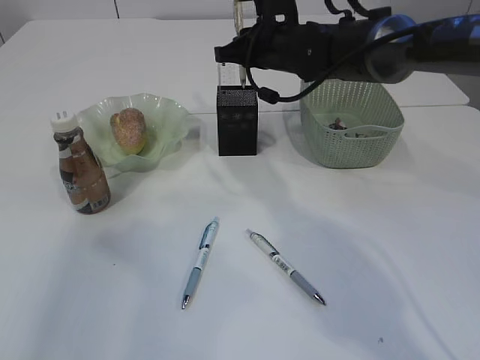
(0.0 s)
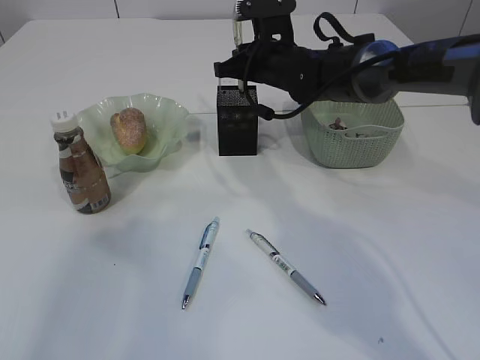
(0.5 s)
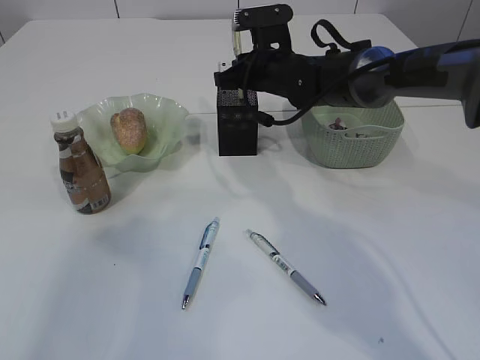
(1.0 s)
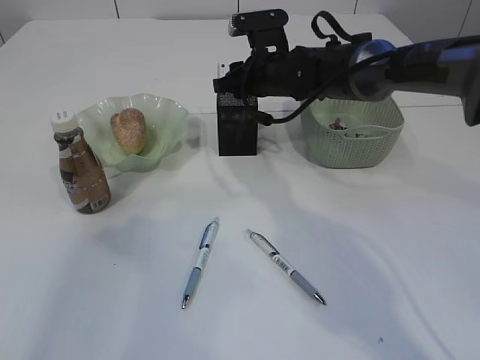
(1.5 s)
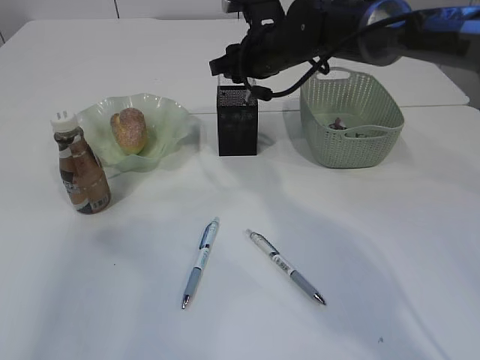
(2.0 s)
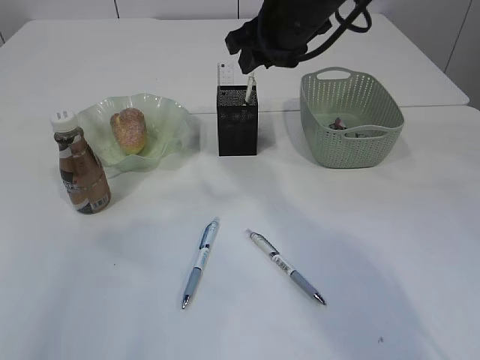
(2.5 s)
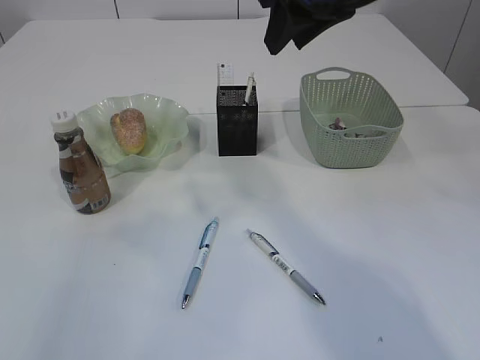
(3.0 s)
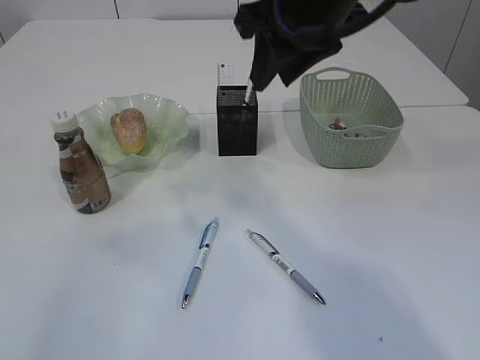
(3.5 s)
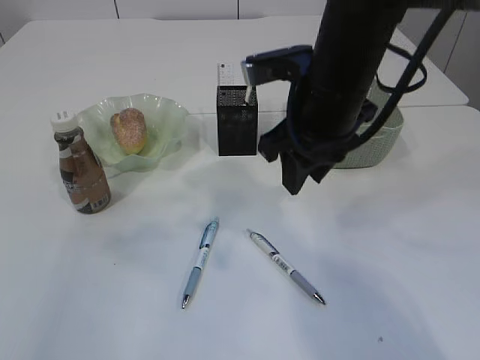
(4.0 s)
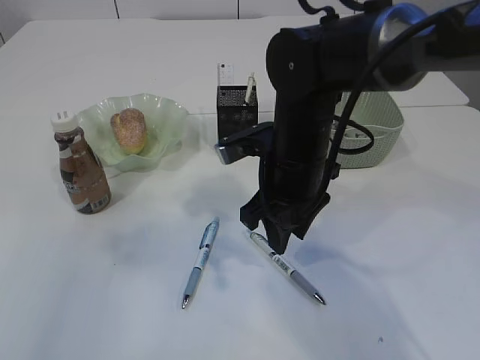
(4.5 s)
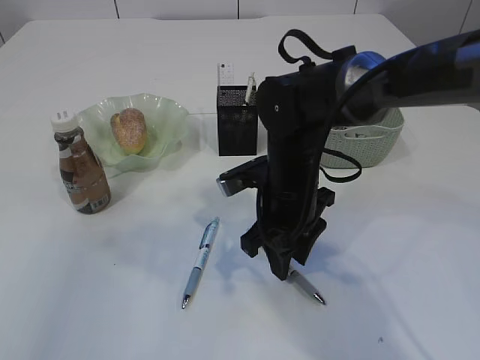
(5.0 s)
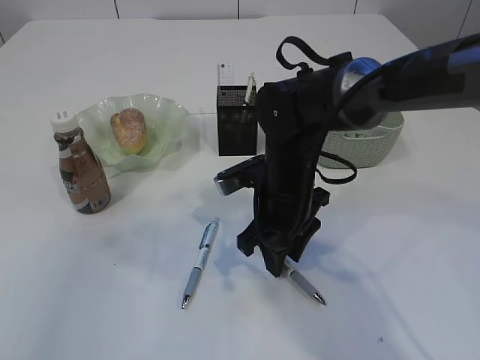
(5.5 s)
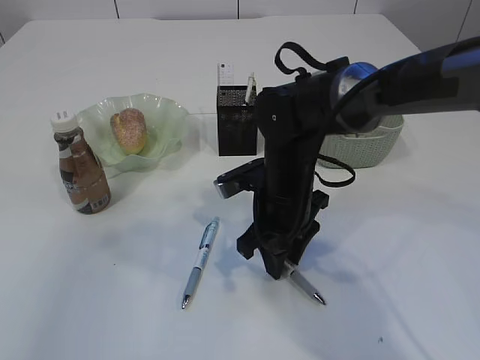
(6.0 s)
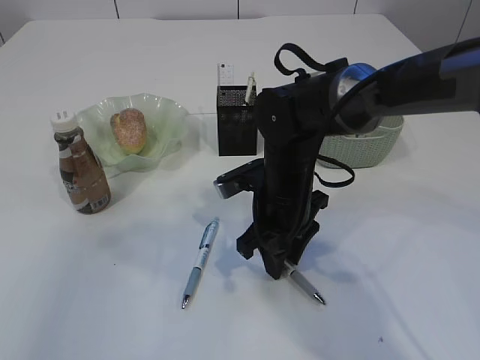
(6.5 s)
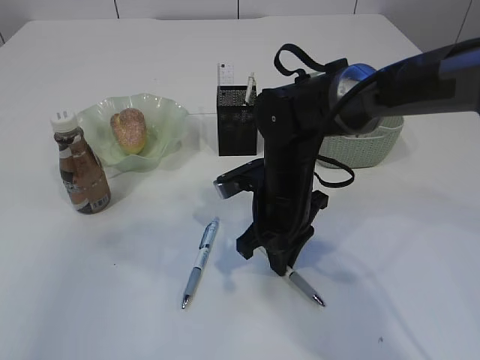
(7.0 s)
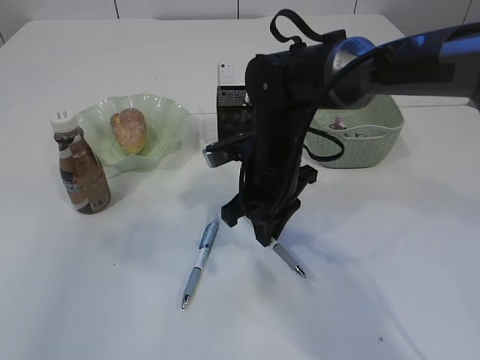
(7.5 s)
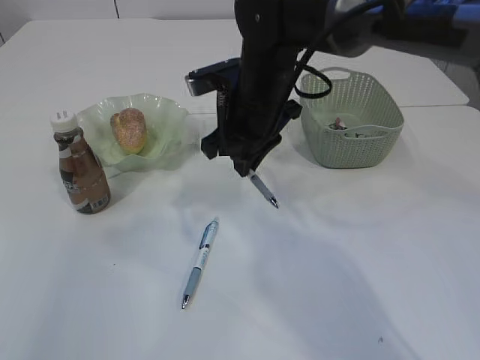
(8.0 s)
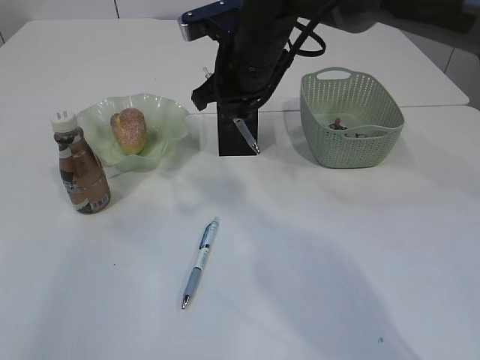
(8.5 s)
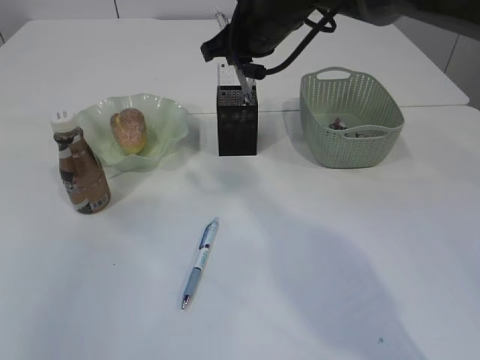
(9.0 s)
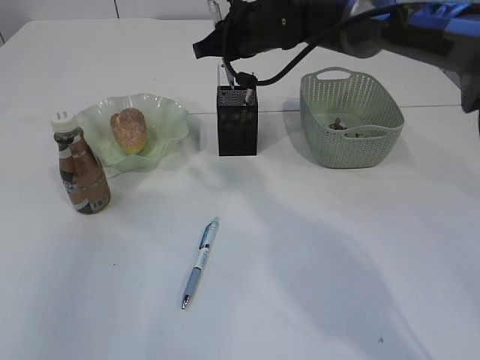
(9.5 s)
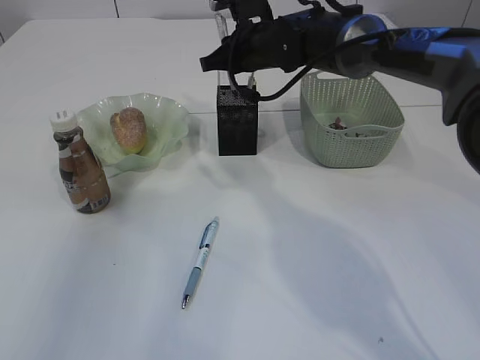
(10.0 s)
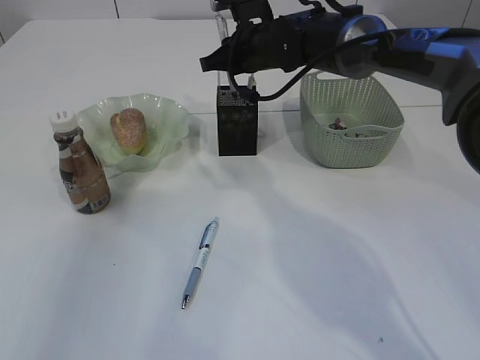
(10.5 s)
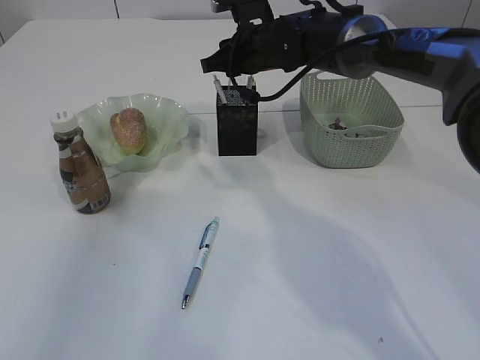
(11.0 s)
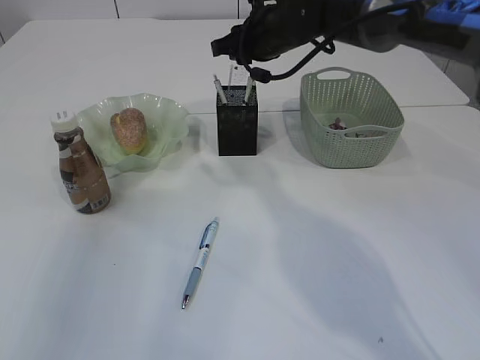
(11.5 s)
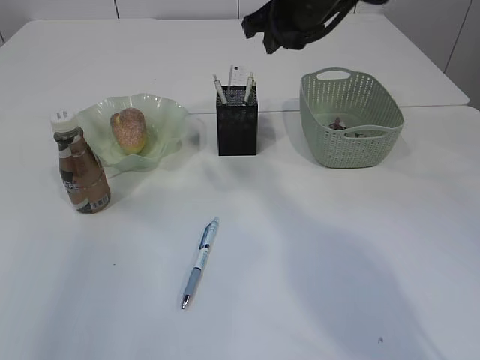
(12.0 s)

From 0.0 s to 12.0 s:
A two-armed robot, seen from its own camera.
Step, from 0.0 s to 2.5 s: Place the pen into the pen holder.
Step, from 3.0 s to 7.5 s: Pick up the pen with right arm.
Step, from 8.0 s to 11.5 s: Place the pen into the pen holder.
From 0.0 s to 2.0 s: The right gripper opens up.
From 2.0 s to 4.0 s: The right gripper shifts some 15 cm backward.
From 4.0 s to 6.0 s: The right gripper shifts some 15 cm downward.
From 6.0 s to 8.0 s: The right gripper goes about 10 cm upward and forward, and closes its fingers.
From 8.0 s to 10.0 s: The right gripper goes approximately 10 cm forward.
From 10.0 s to 12.0 s: The right gripper is displaced upward and backward by roughly 10 cm.

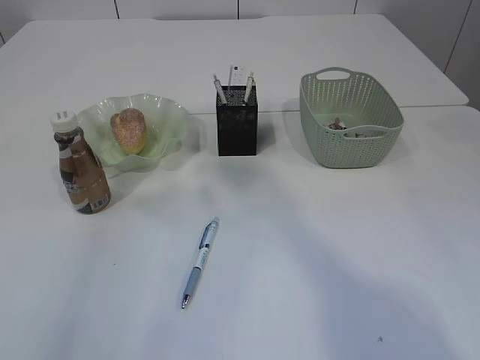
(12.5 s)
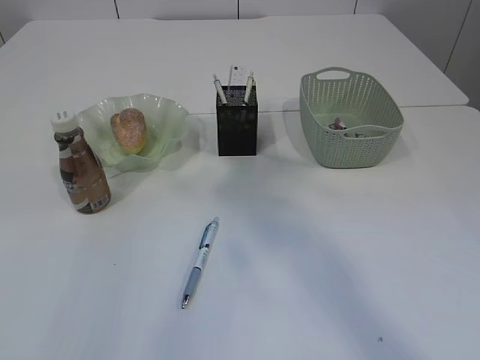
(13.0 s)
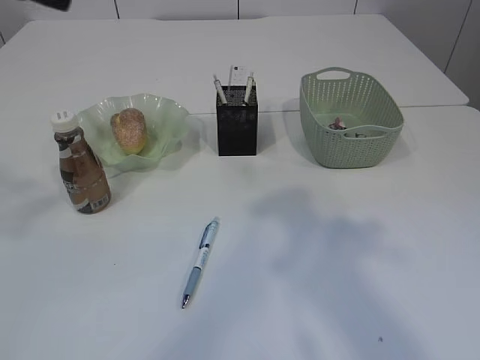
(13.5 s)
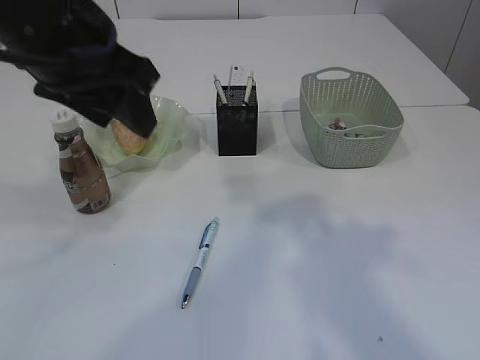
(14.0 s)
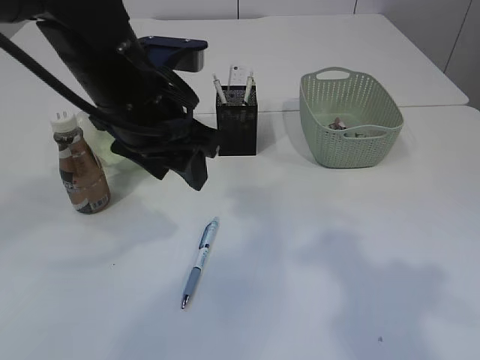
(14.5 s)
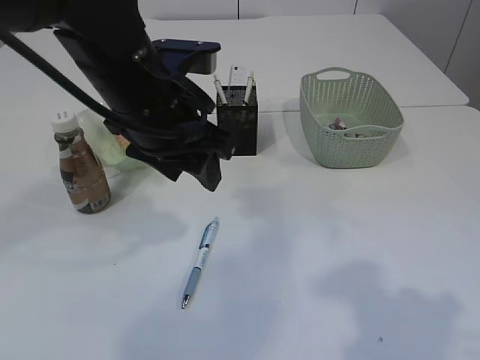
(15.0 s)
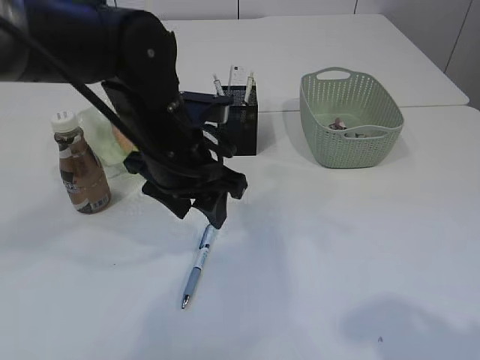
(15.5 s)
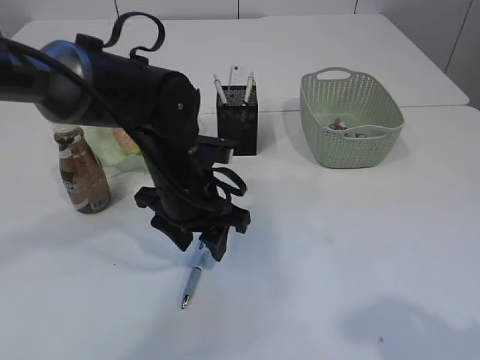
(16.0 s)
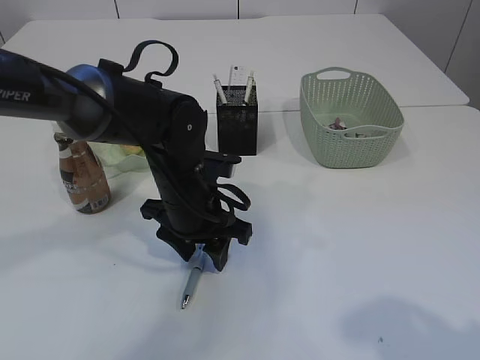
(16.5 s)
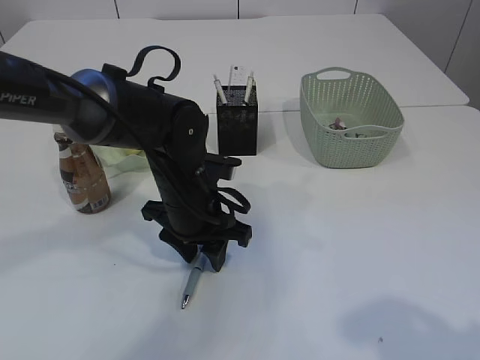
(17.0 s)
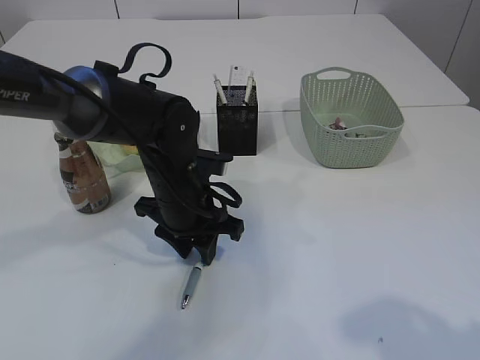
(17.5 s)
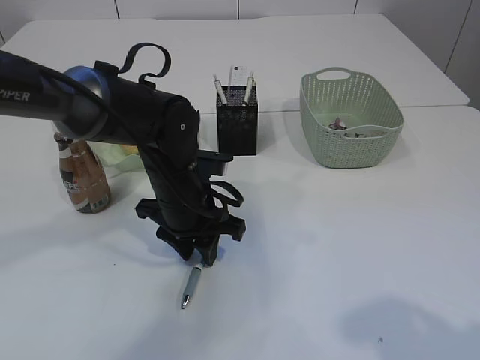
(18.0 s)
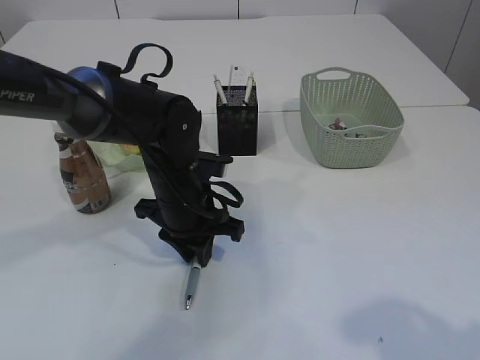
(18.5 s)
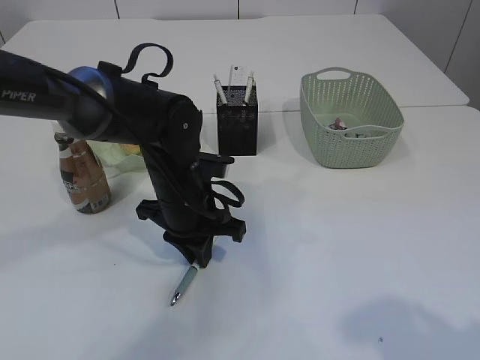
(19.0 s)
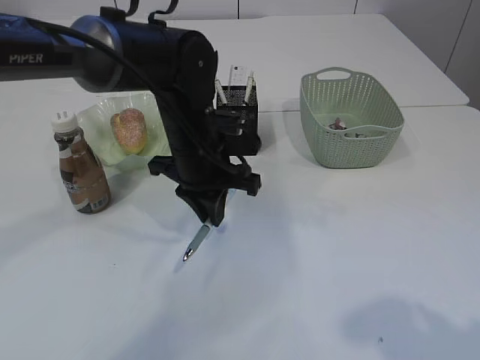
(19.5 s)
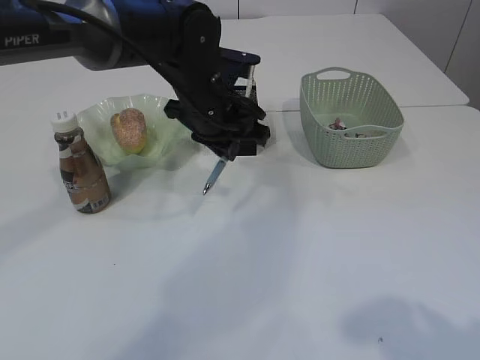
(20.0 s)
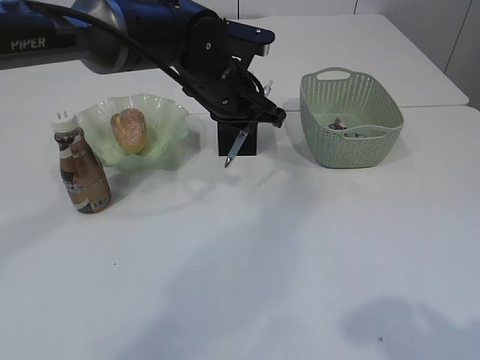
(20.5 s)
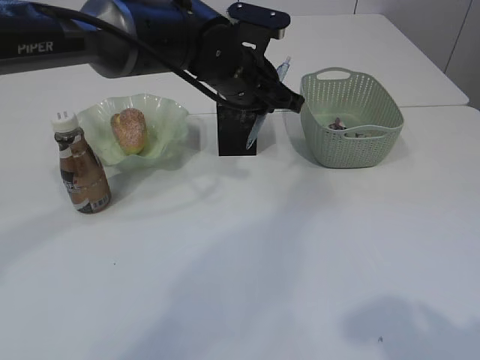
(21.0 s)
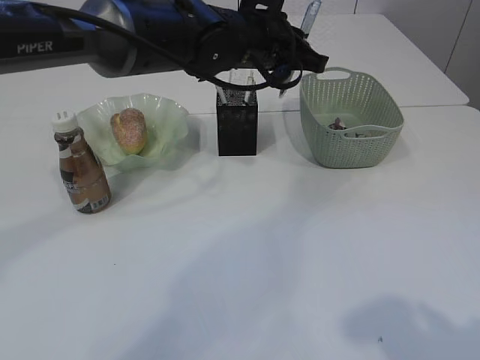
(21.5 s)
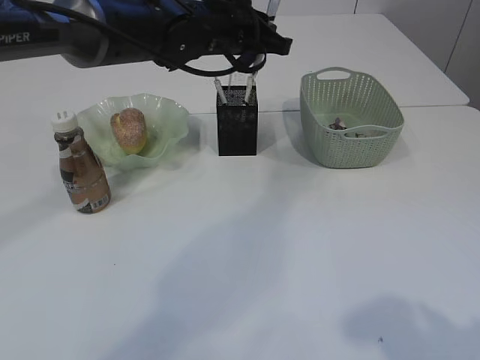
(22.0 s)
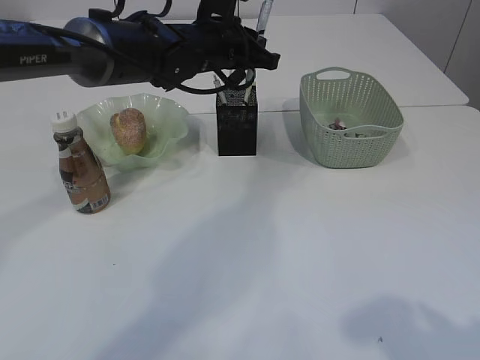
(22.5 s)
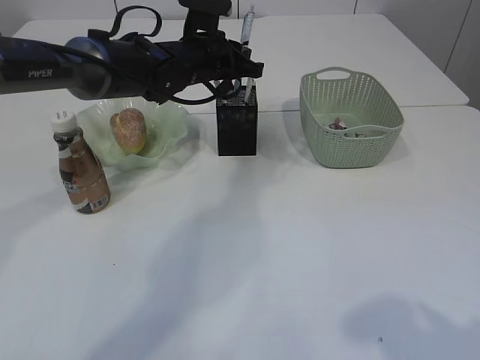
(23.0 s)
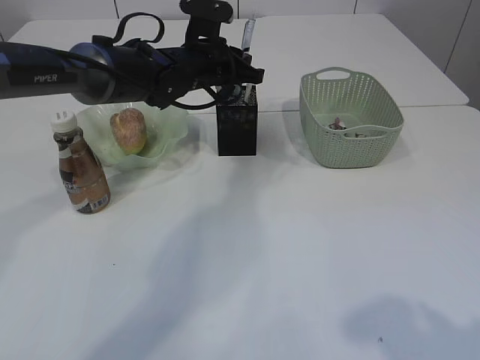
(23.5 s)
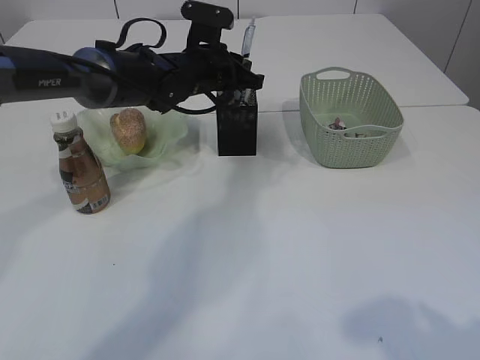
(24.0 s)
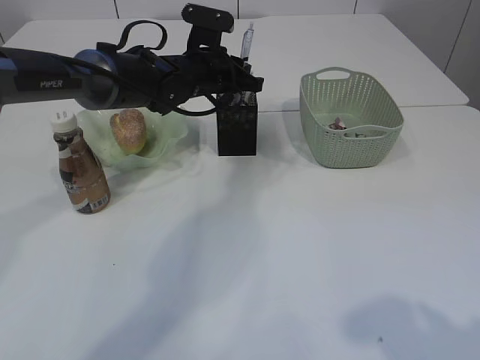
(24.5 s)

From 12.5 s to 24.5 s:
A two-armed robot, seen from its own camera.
Step, from 12.5 s to 19.5 s: Pick up the pen with left arm.
From 12.5 s to 14.5 s: The right gripper moves backward and to the right, about 25 cm. The left gripper moves to the right, downward and forward, approximately 25 cm.
From 14.5 s to 16.5 s: The left gripper travels downward by about 15 cm, while the right gripper is displaced downward and backward by about 10 cm.
From 16.5 s to 18.5 s: The left gripper closes its fingers.
From 18.5 s to 20.5 s: The left gripper shifts roughly 15 cm upward and forward.
From 20.5 s to 22.5 s: The left gripper travels forward by roughly 5 cm.
From 22.5 s to 24.5 s: The left gripper ends up roughly 5 cm from where it was.

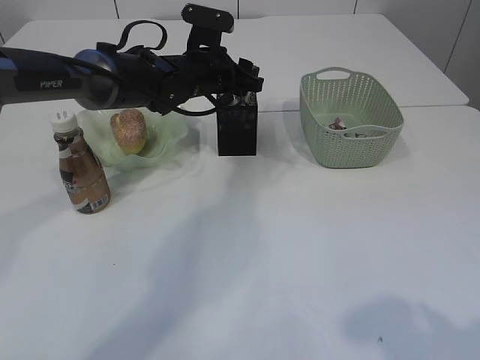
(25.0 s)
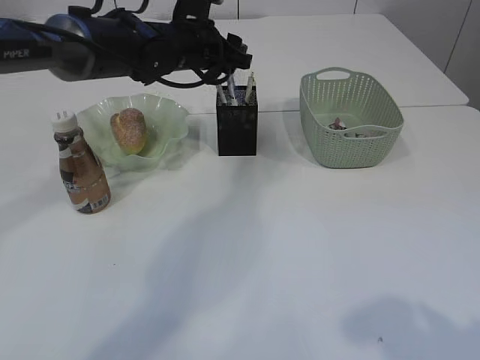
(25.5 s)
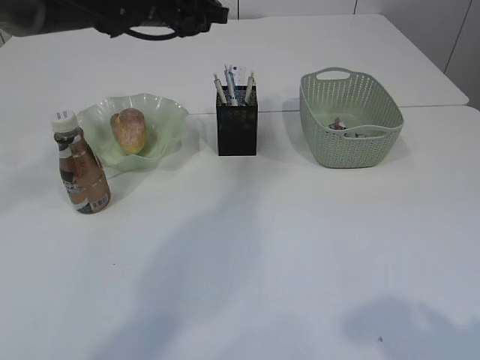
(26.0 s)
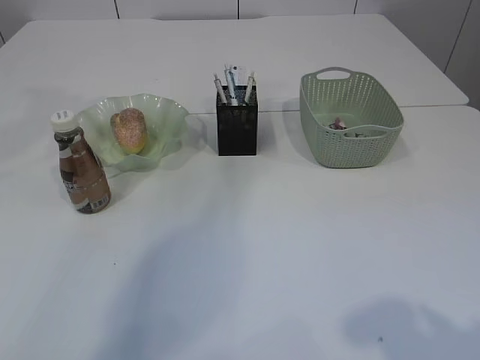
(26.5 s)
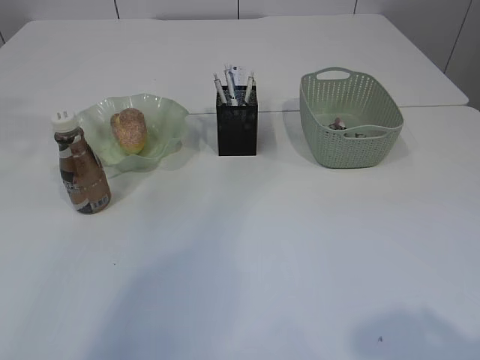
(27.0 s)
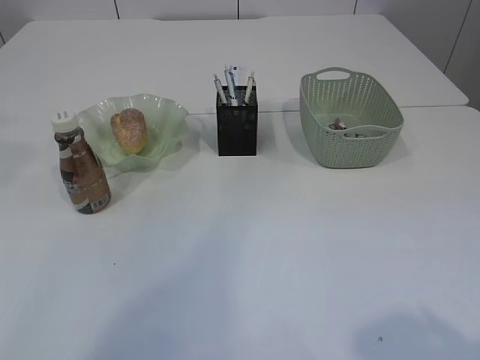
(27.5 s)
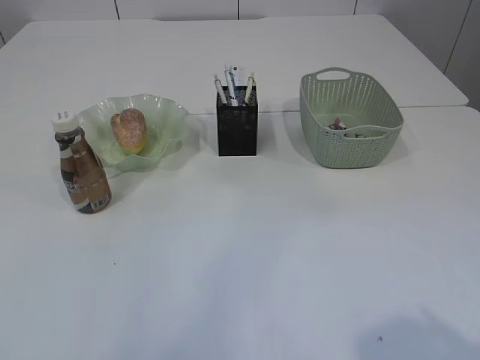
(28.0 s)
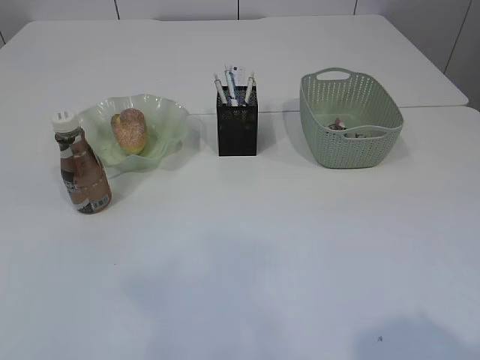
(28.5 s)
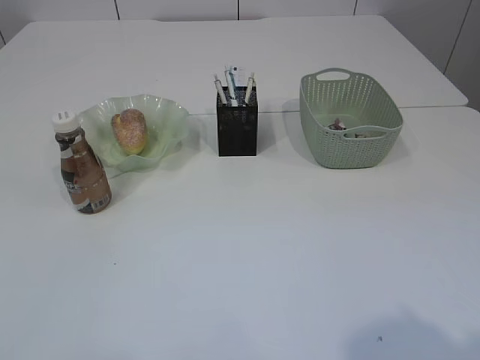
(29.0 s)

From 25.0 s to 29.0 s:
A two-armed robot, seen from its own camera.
From 25.0 s to 27.0 s: The left gripper goes roughly 30 cm upward, to the left and backward.
From 27.0 s to 29.0 s: The left gripper heads backward, covering some 40 cm.
